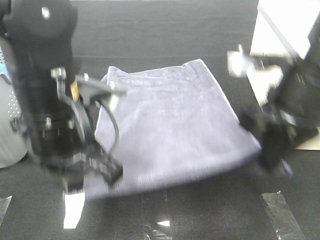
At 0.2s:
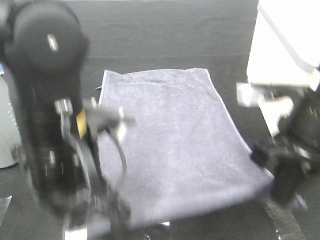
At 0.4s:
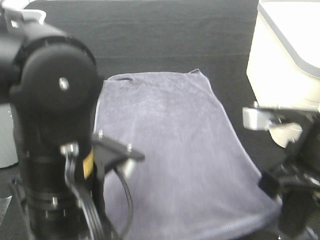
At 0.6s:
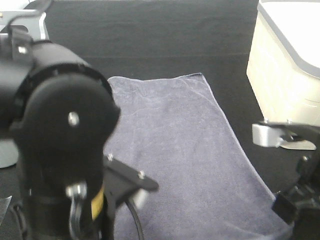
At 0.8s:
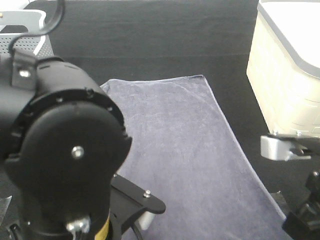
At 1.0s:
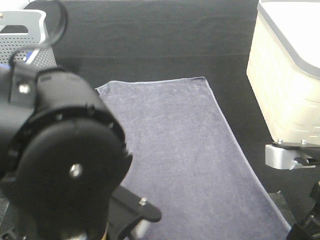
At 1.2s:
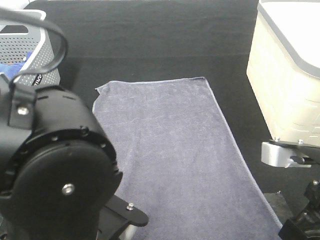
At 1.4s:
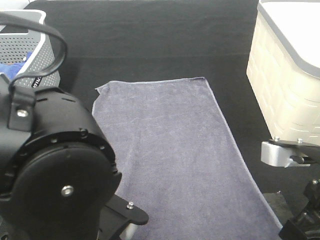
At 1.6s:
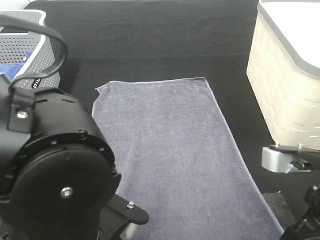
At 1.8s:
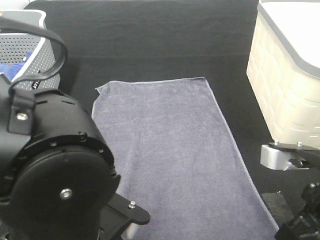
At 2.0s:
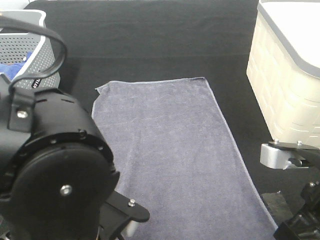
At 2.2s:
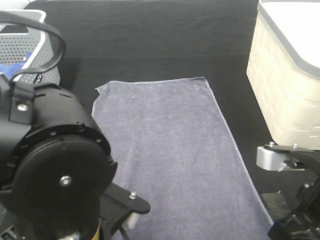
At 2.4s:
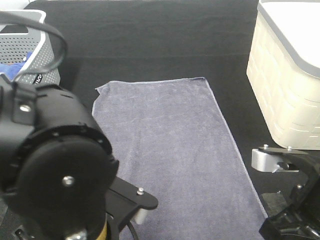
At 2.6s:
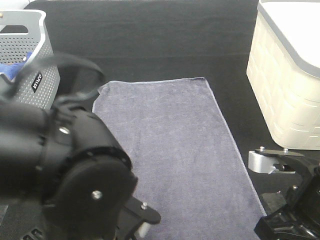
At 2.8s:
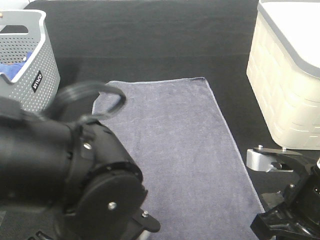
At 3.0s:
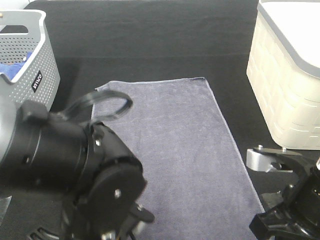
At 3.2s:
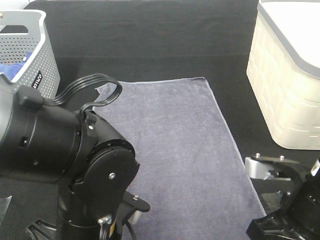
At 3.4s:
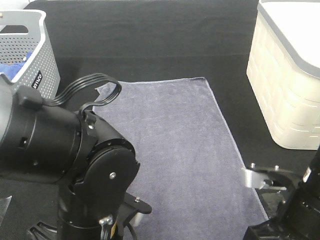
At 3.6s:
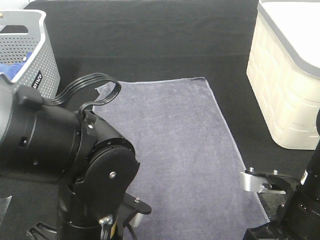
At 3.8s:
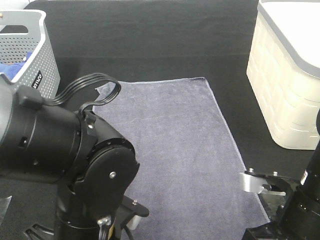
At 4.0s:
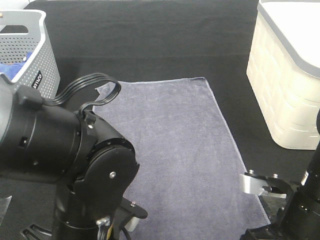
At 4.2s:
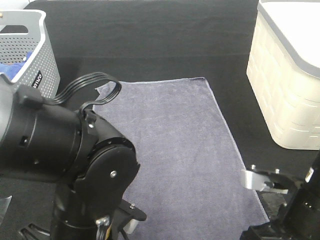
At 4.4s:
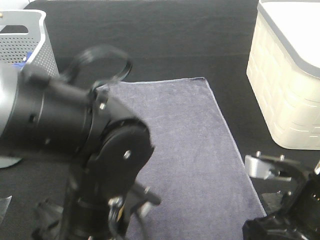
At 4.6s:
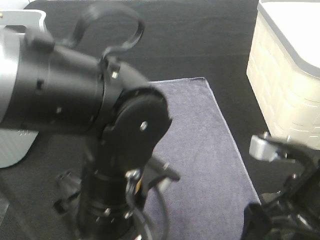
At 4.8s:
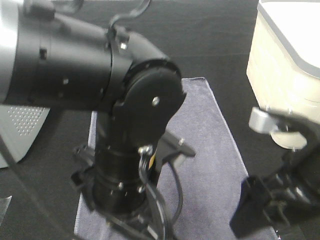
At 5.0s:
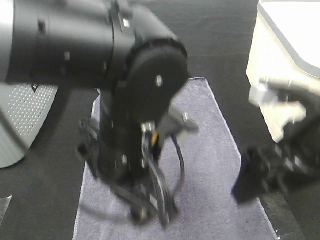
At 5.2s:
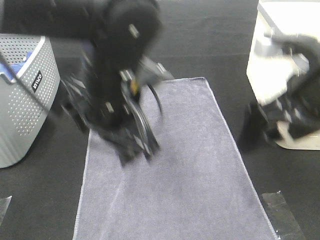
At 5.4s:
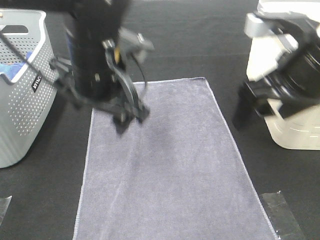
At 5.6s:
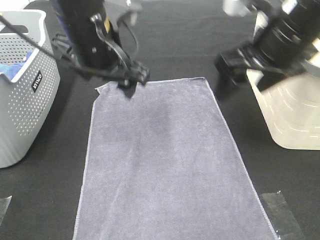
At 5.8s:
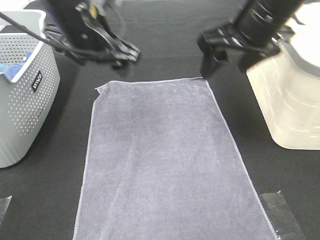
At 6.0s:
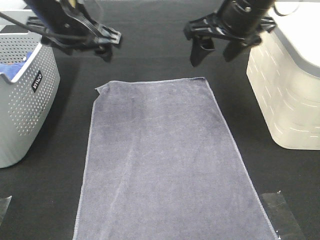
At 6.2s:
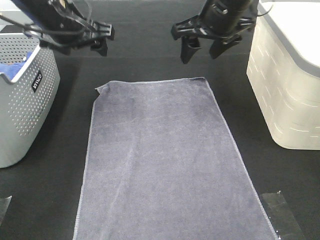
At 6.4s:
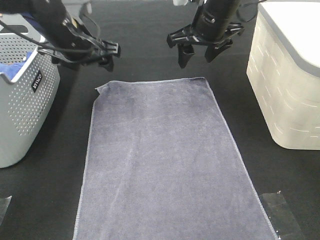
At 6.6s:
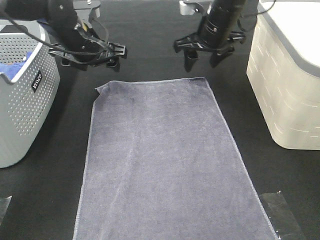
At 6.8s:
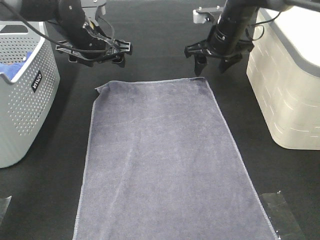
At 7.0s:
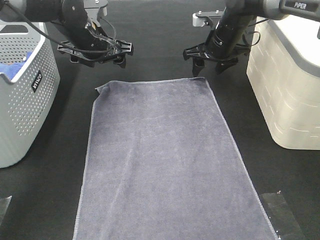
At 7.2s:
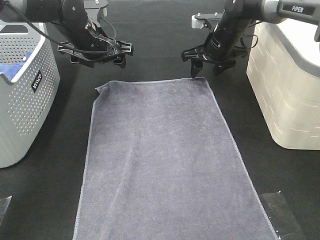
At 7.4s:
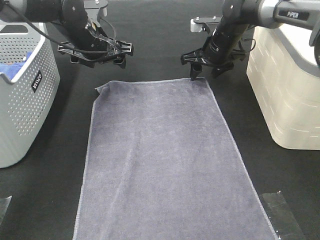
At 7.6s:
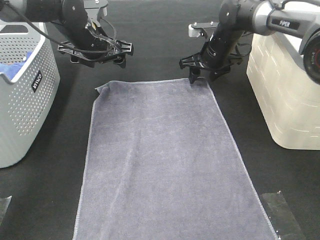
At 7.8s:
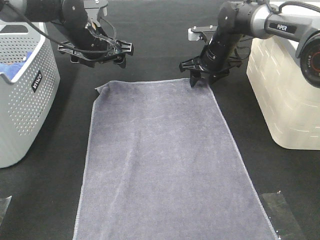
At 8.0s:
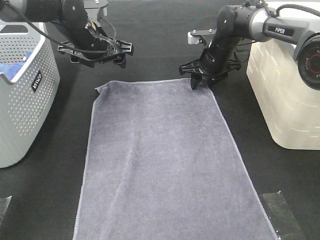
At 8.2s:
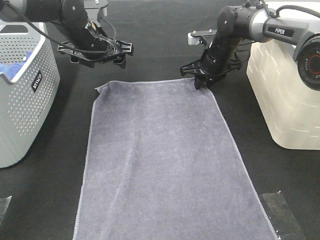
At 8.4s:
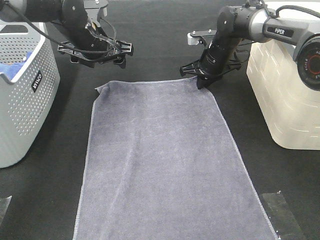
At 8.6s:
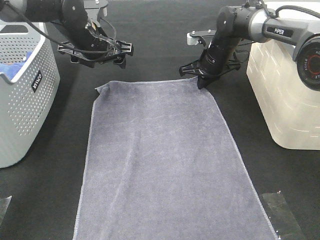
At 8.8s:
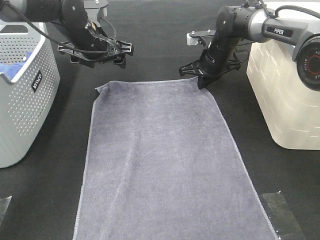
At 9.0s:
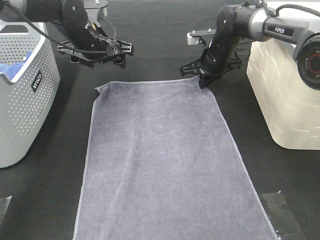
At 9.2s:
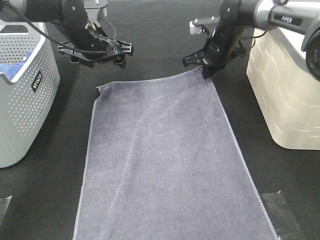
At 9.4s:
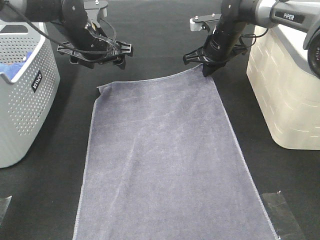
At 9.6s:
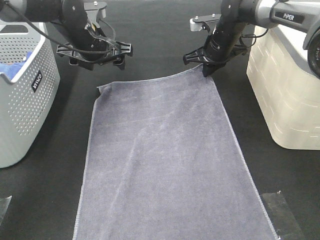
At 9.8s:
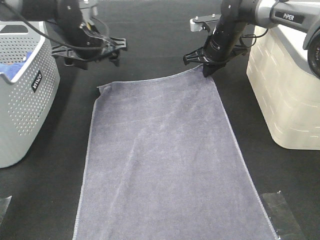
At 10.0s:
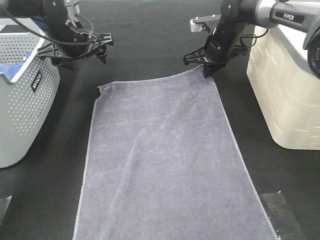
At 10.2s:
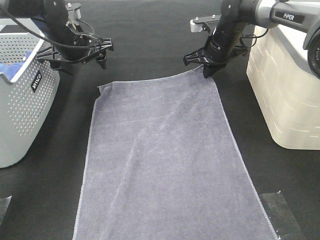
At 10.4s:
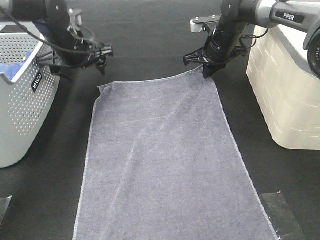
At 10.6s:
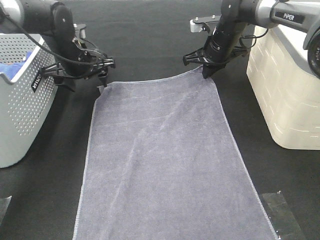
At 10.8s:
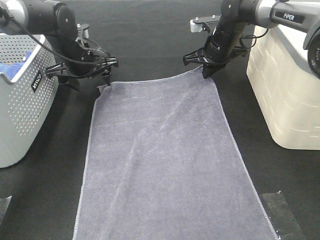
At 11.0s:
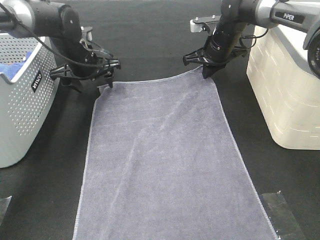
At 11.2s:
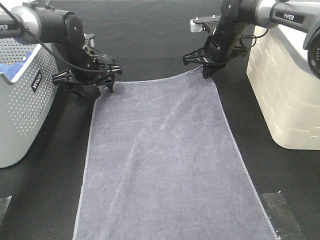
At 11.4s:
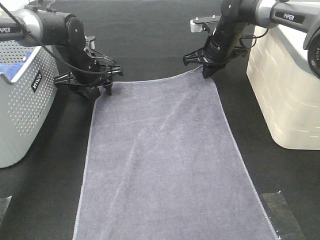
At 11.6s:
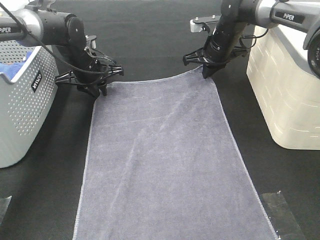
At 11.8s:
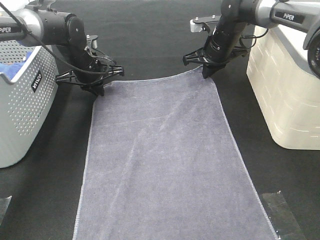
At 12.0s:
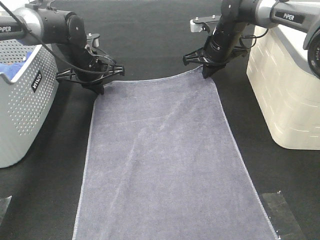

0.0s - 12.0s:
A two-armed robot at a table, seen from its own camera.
Task of the whole recording: Remove the towel and place it.
Step, 0.0s - 6.2s: Left hand:adjust the gray towel.
Step, 0.0s - 6.2s: Right hand:adjust the gray towel.
0.0s - 1.6s: The right gripper goes about 10 cm backward and downward. The left gripper is displaced backward by approximately 15 cm.
1.6s - 3.0s: The left gripper is displaced downward by some 5 cm.
3.0s - 4.4s: The right gripper opens up, while the left gripper opens up.
4.4s - 6.0s: Both grippers move forward and upward, some 25 cm.
6.0s - 7.6s: The right gripper is displaced downward and forward by approximately 20 cm. The left gripper heads forward and downward, covering some 10 cm.
7.6s - 9.0s: The right gripper closes its fingers.
9.0s - 10.4s: The grippers move only a little.
10.4s - 12.0s: The left gripper shifts by approximately 5 cm, and closes its fingers.

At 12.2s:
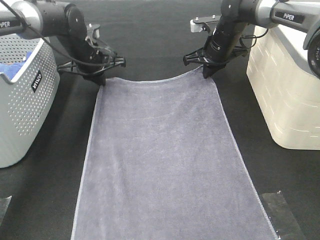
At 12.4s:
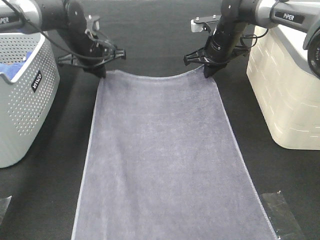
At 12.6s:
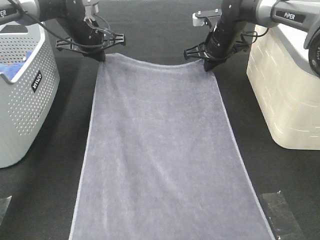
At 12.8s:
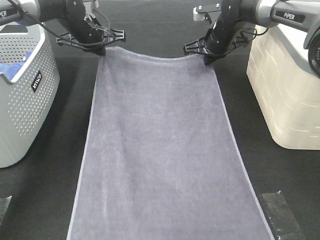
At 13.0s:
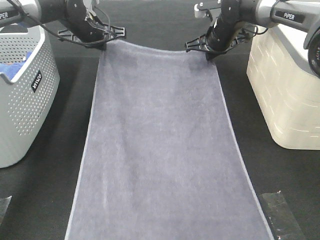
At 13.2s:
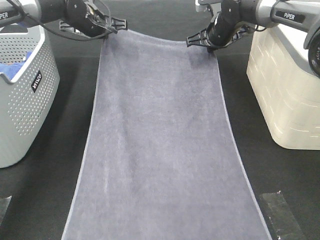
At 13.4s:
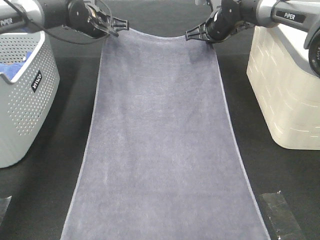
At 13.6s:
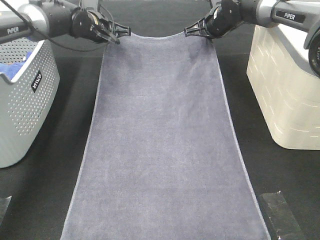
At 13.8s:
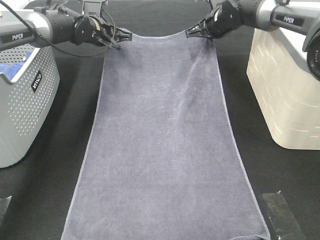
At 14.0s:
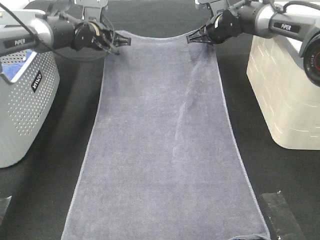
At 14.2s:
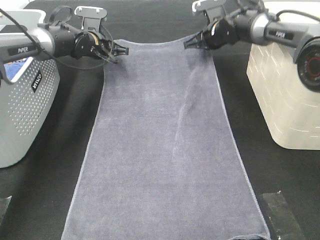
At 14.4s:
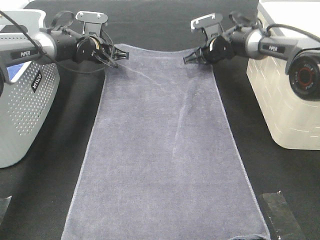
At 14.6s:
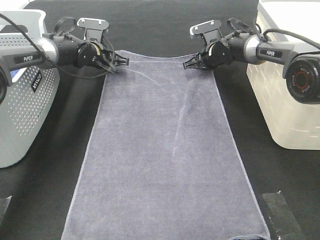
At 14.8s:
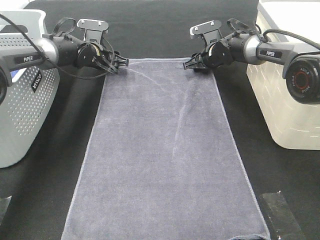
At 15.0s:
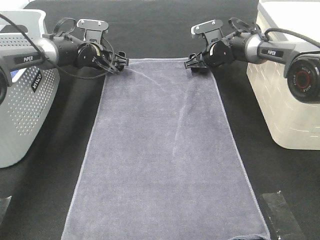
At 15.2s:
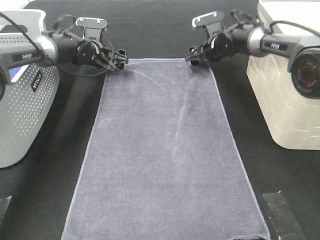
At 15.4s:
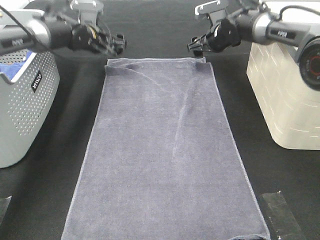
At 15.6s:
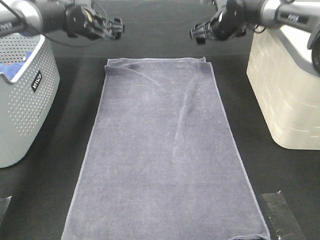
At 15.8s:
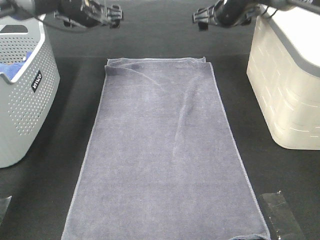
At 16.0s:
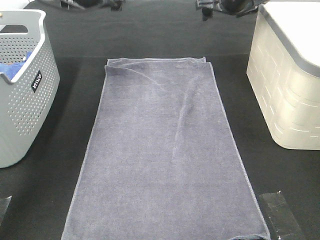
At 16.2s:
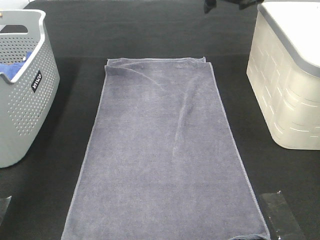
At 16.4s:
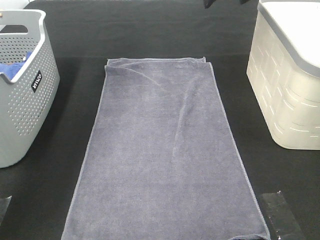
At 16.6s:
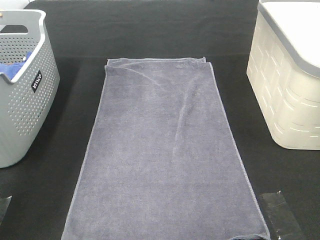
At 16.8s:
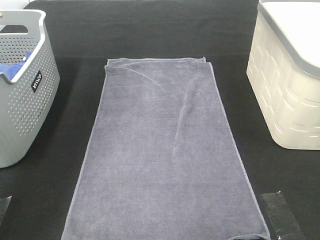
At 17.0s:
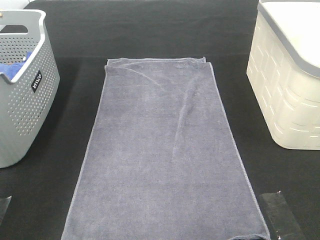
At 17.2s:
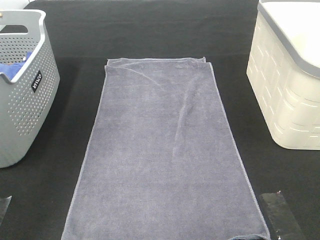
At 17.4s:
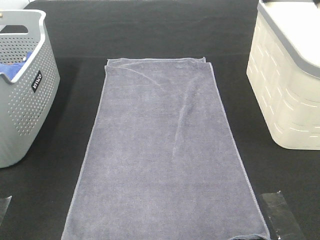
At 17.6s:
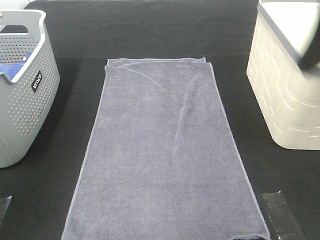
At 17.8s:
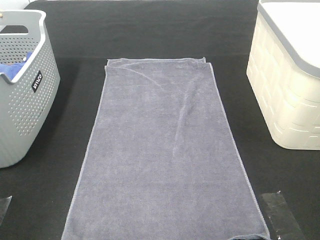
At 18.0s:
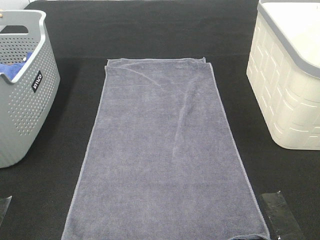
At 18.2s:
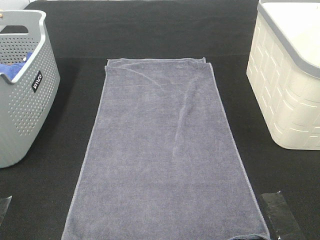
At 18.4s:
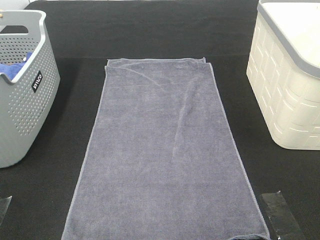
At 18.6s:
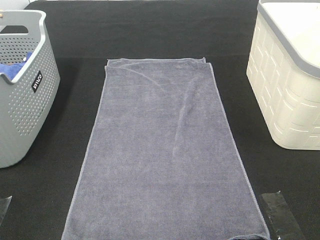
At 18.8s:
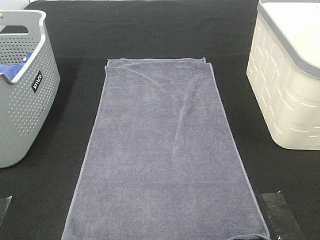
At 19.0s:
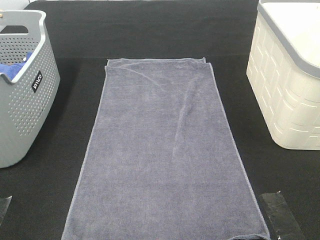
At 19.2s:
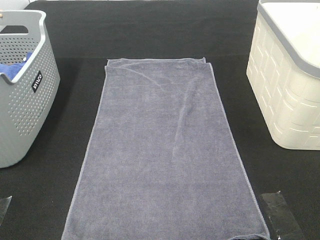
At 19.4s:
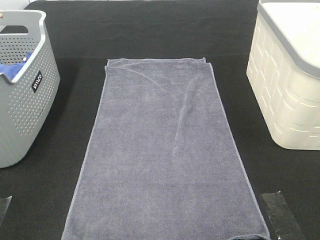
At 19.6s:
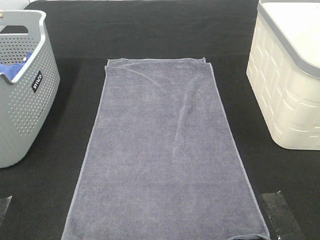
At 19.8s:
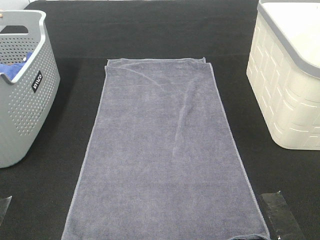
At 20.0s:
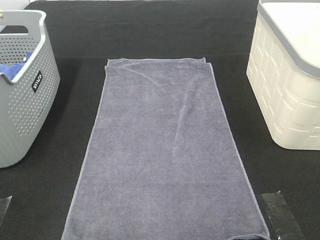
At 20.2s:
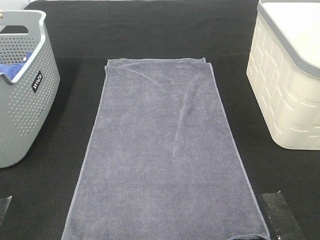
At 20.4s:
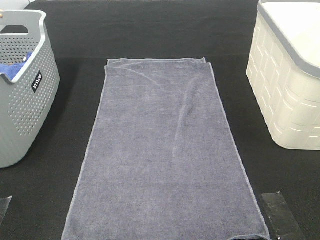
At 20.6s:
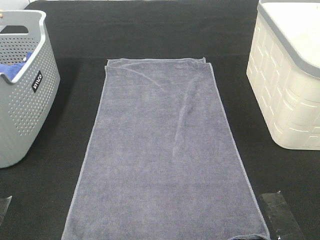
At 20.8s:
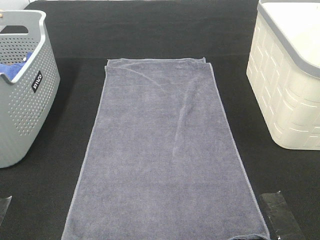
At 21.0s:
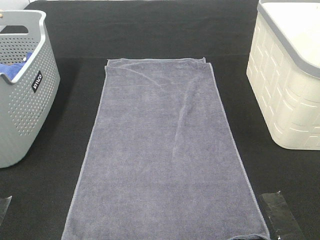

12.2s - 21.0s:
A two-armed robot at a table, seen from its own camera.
Task of the whole recording: Remove the towel and place it.
12.2s - 13.6s: The left gripper changes place by roughly 5 cm.
13.6s - 15.2s: The grippers both shift downward by approximately 5 cm. The right gripper opens up. Meanwhile the left gripper opens.
15.2s - 16.6s: Both grippers move upward and backward, approximately 30 cm.
16.6s - 18.0s: The grippers both shift backward by roughly 40 cm.
